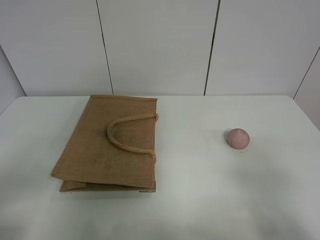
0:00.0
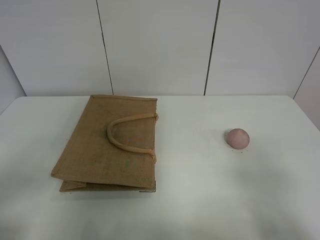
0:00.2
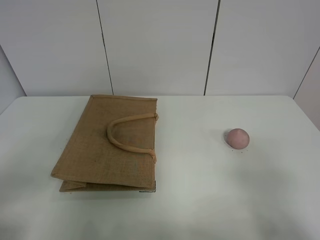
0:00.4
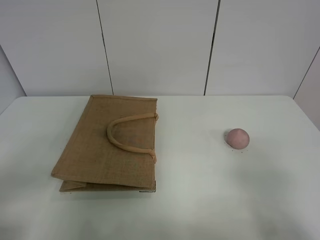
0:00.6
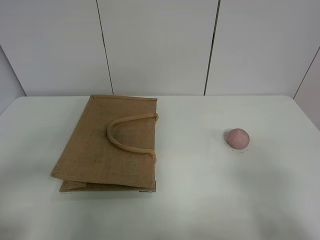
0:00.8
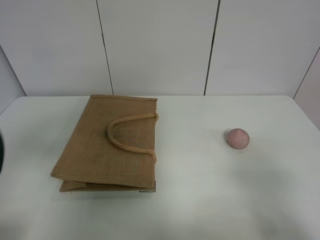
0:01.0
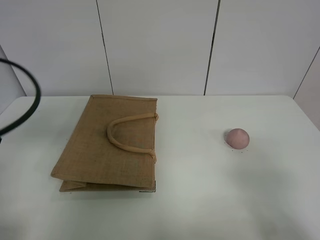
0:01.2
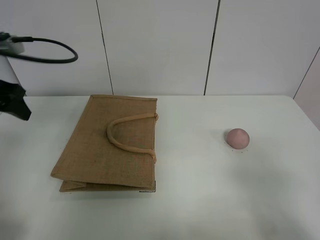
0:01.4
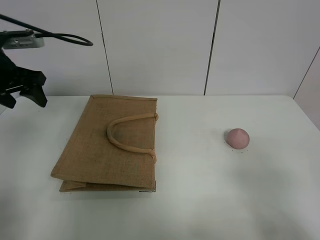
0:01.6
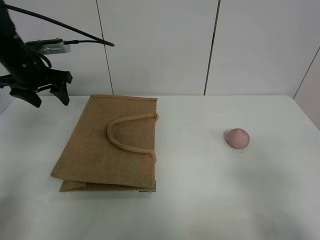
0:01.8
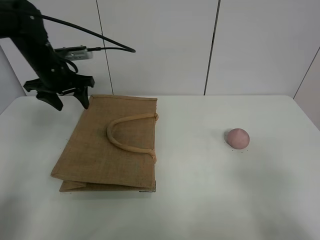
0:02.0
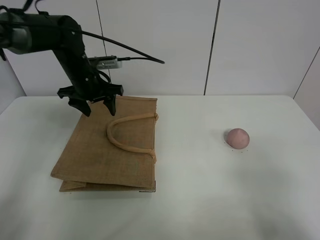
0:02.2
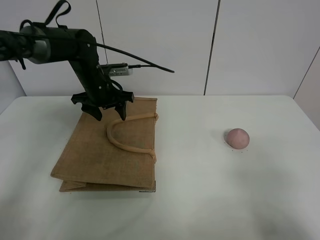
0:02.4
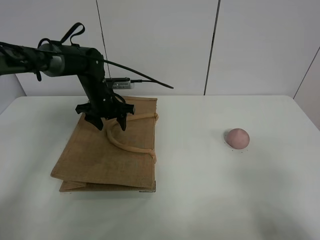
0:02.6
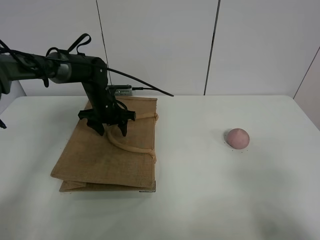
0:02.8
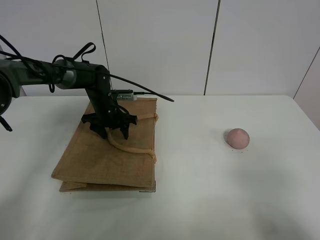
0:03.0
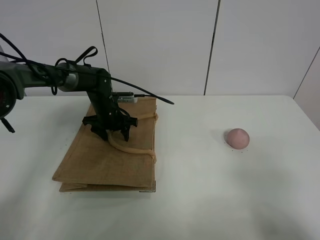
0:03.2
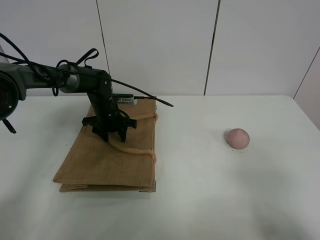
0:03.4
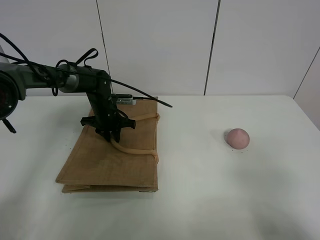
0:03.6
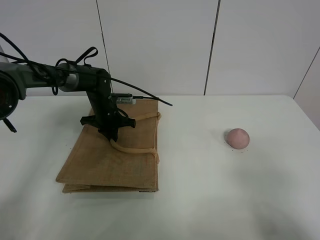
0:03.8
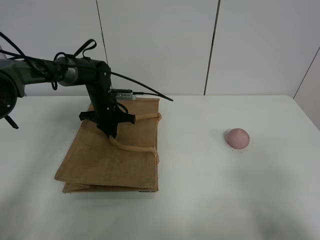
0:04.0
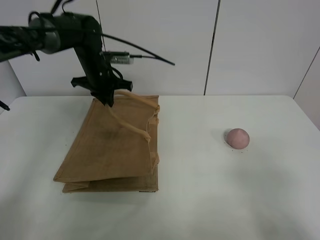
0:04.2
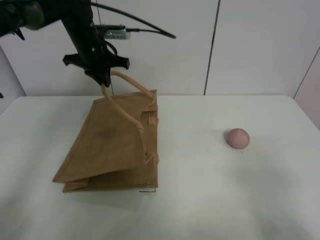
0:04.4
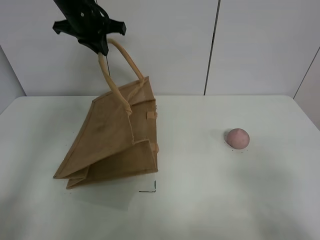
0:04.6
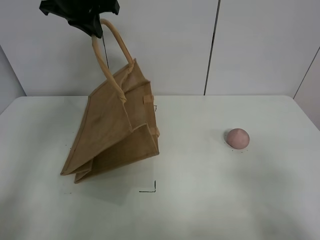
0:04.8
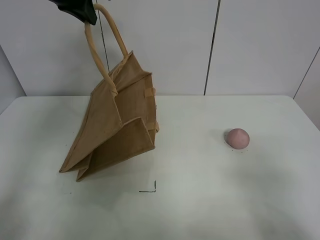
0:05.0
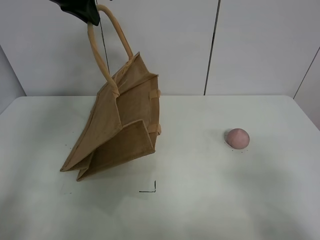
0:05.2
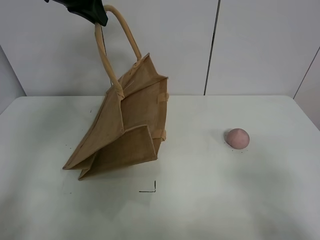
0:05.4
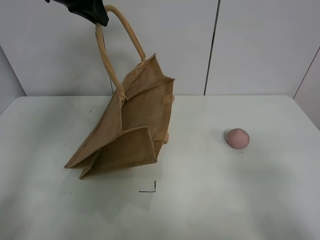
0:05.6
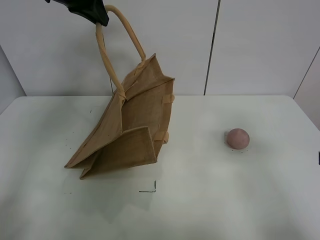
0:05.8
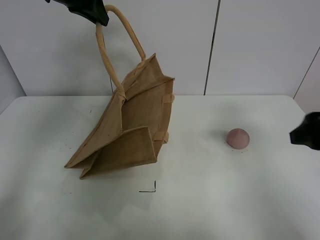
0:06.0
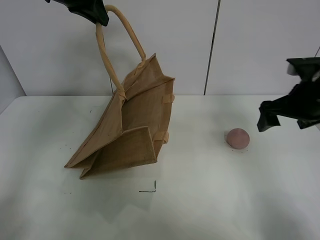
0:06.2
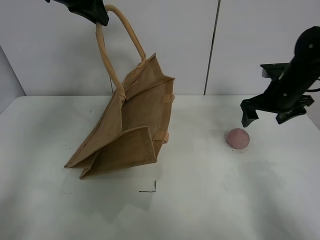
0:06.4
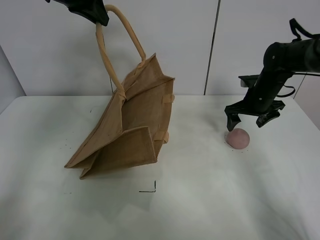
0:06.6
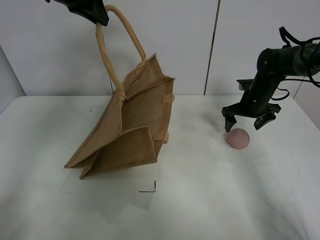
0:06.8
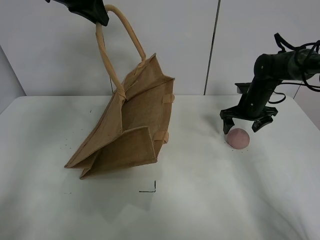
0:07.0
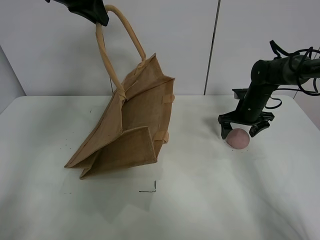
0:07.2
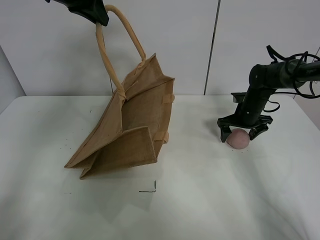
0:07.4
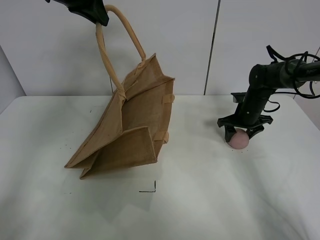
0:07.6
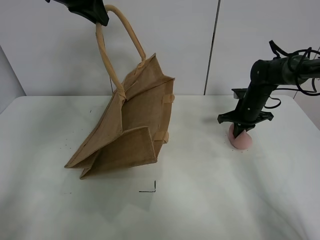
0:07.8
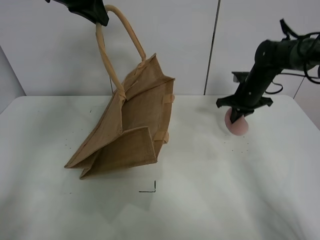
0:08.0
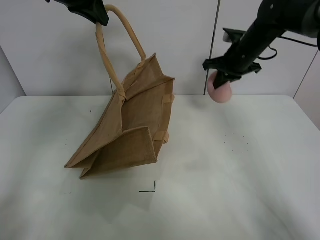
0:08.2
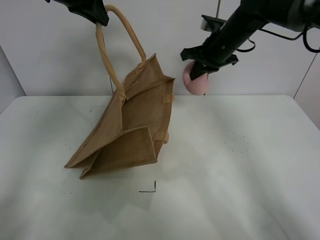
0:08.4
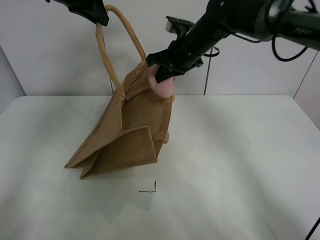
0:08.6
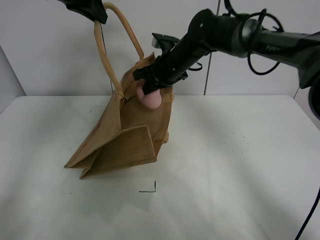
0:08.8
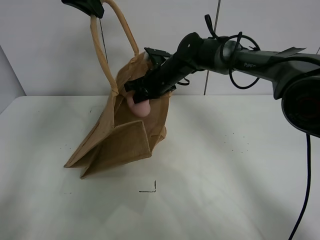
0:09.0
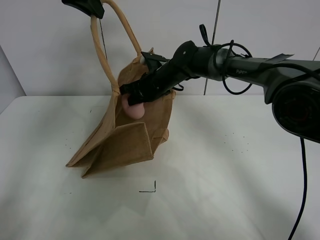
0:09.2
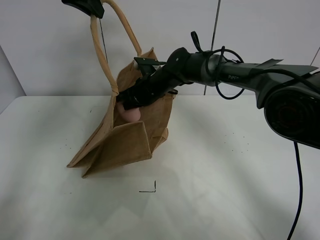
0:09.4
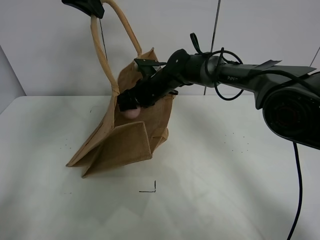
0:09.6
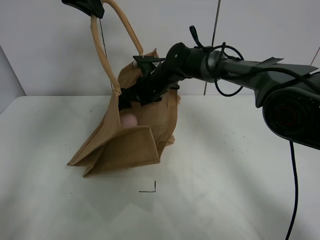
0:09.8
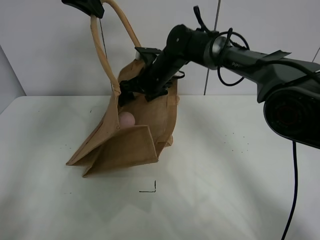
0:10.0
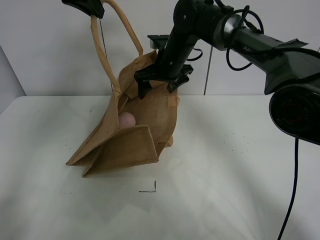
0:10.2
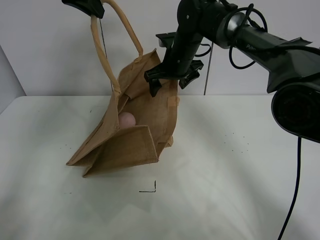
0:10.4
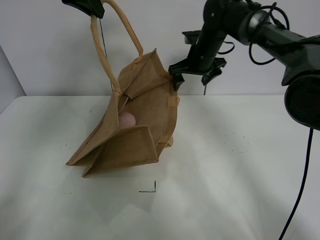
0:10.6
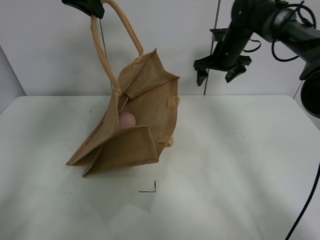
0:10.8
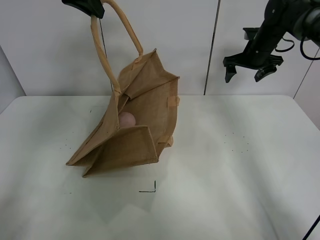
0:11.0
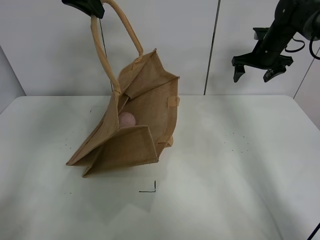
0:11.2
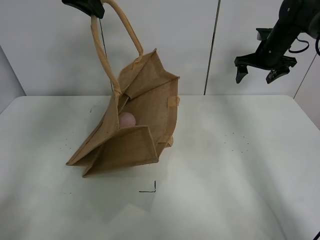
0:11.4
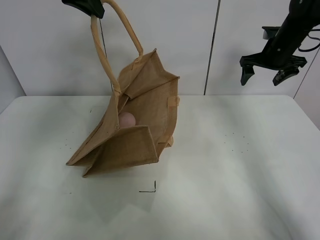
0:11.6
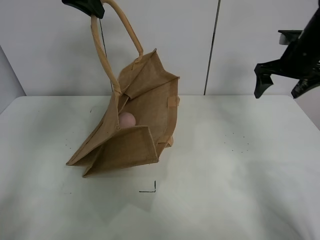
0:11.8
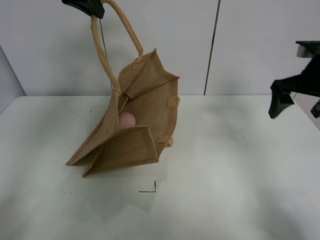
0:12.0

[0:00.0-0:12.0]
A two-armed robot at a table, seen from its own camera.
Task of the whole recording: open the brown linen bag and put the peach in the bag.
Step, 0:00.0 to 0:04.8: Lift the handbag with left gripper.
Step, 0:05.0 to 0:07.6: Grasp the peach with right gripper.
Step, 0:07.8 to 0:10.4: Place the peach in the handbag with right gripper.
0:00.0 to 0:01.6: The left gripper heads forward, covering roughly 35 cm.
0:01.6 to 0:03.0: The left gripper goes approximately 25 cm downward, to the right and forward.
0:03.0 to 0:04.4: The left gripper goes about 20 cm upward, and closes.
0:04.4 to 0:06.0: The right gripper shifts about 20 cm forward; the left gripper moves upward and backward, some 15 cm.
0:06.0 to 0:07.6: The right gripper is displaced forward and downward by approximately 30 cm, and closes its fingers.
0:07.6 to 0:09.0: The right gripper heads to the left, covering roughly 25 cm, and closes its fingers.
0:09.0 to 0:10.4: The right gripper heads upward, covering about 5 cm, and opens.
0:10.4 to 0:12.0: The right gripper goes approximately 30 cm to the right and backward.

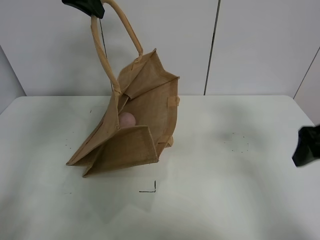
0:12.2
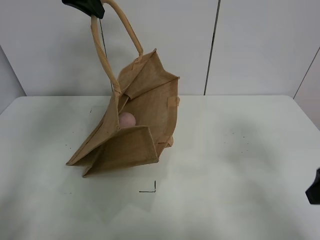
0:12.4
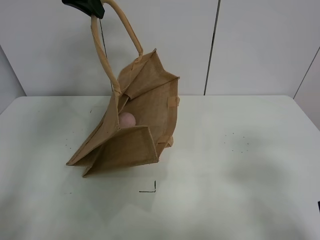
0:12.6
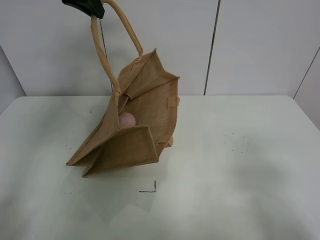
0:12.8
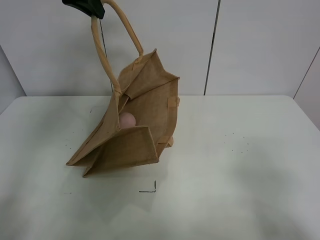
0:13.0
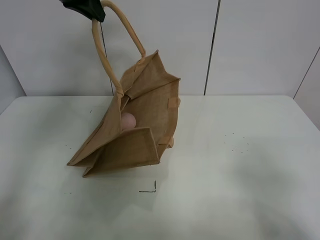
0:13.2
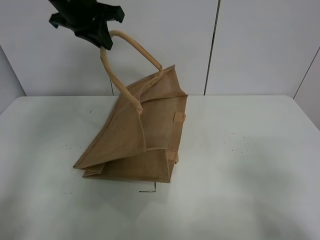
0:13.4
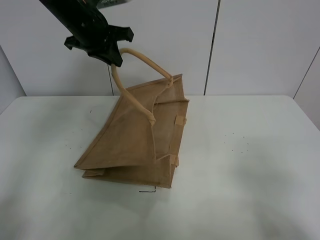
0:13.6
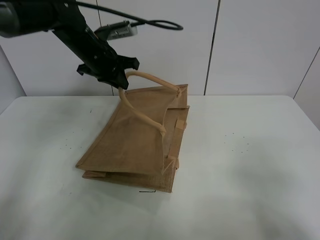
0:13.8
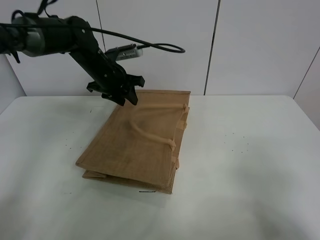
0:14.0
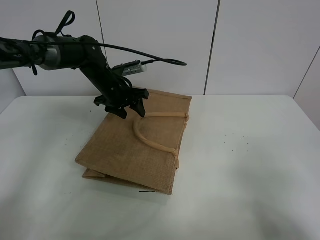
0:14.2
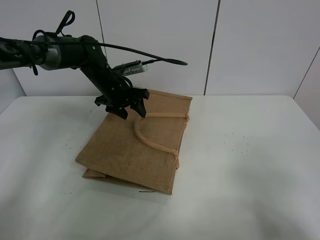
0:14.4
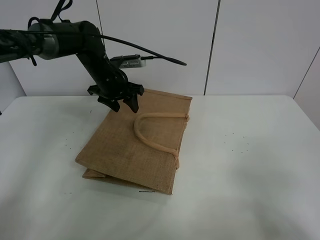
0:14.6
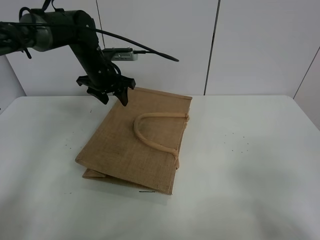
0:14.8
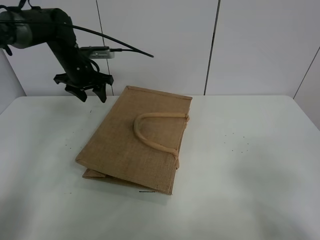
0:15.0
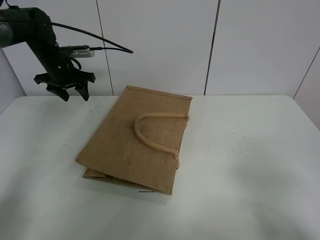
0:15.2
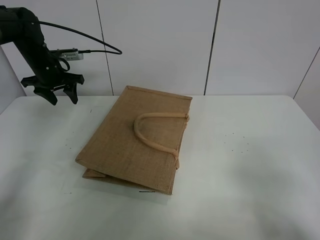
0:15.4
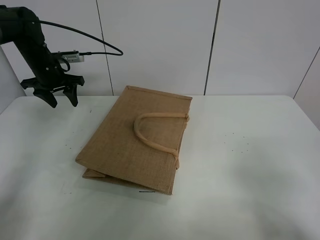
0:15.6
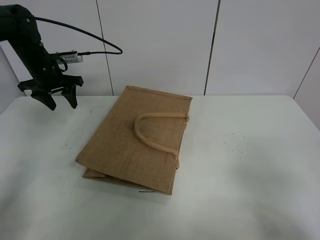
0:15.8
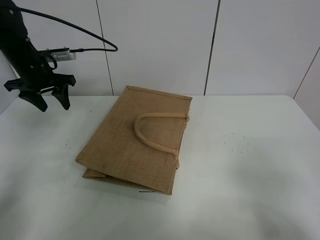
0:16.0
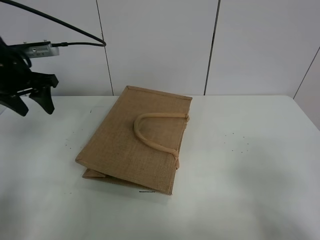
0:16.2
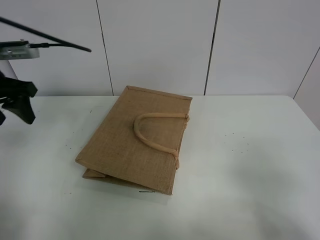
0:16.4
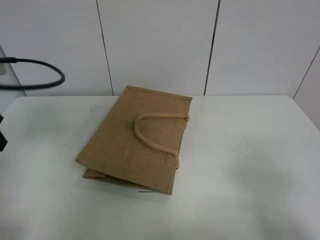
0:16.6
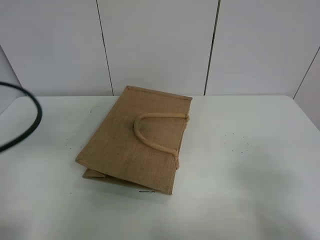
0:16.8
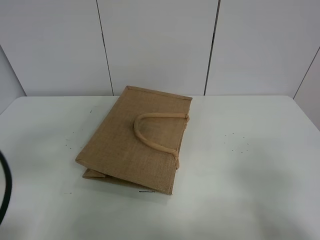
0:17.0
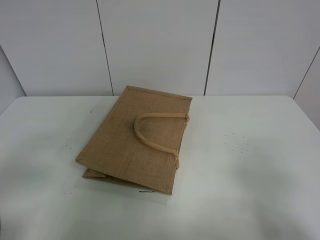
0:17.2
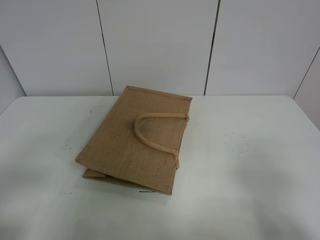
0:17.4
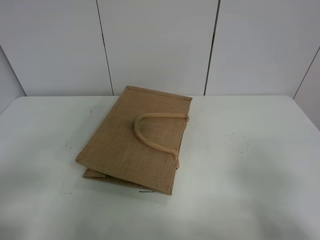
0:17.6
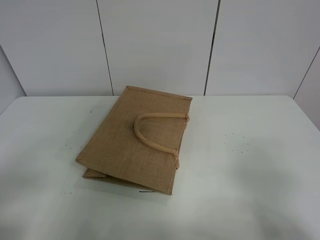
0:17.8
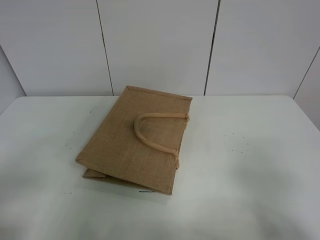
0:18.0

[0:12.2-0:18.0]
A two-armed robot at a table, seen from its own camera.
Task of the whole recording: open the brown linen bag and put the peach in the bag.
Step, 0:12.2 to 0:14.8: Put down the handbag with left grippe.
0:12.2 to 0:13.6: The right gripper travels backward by roughly 20 cm, while the left gripper travels downward by some 10 cm.
0:13.6 to 0:15.0: The left gripper moves downward, to the left and forward, some 15 cm, and opens up.
0:15.0 to 0:16.6: The left gripper is displaced backward by roughly 30 cm.
0:16.6 to 0:18.0: The left gripper is displaced backward by some 15 cm.

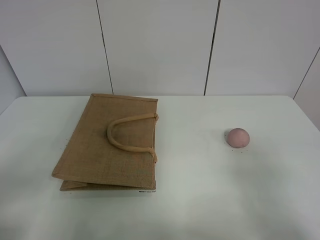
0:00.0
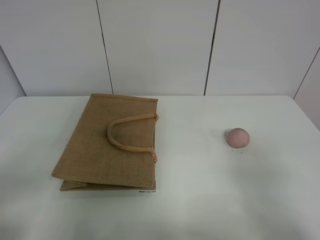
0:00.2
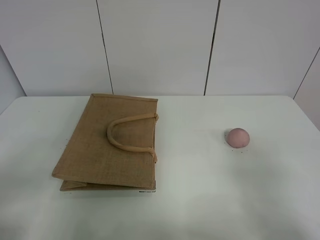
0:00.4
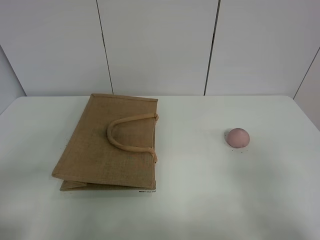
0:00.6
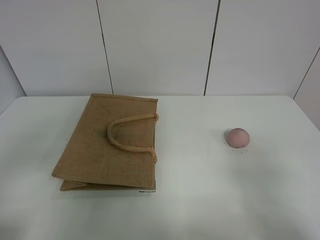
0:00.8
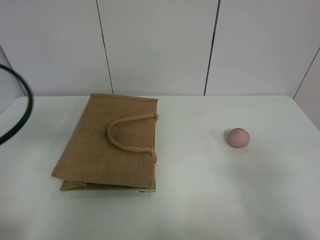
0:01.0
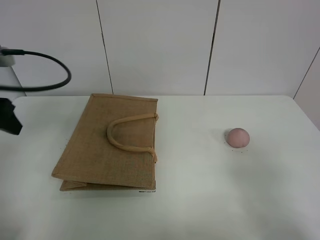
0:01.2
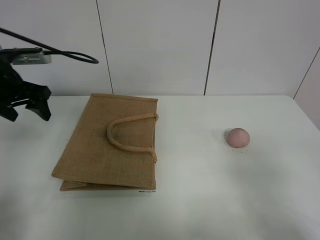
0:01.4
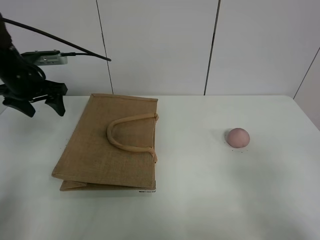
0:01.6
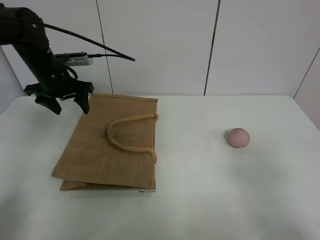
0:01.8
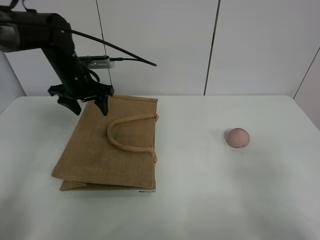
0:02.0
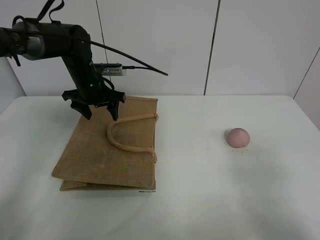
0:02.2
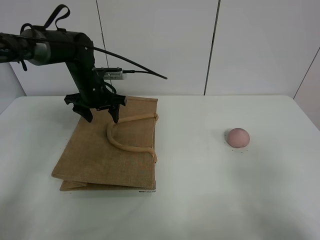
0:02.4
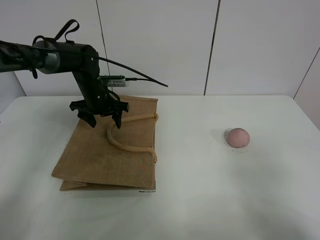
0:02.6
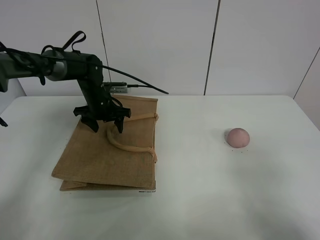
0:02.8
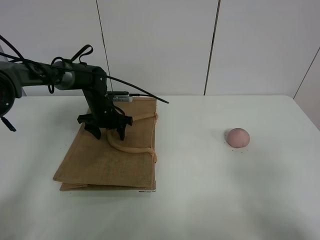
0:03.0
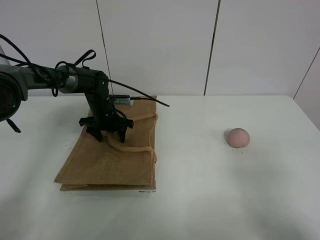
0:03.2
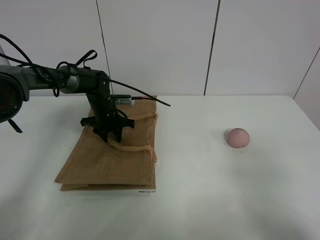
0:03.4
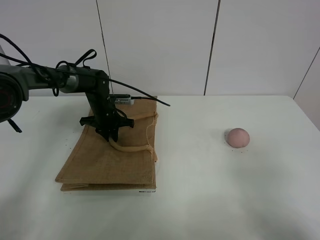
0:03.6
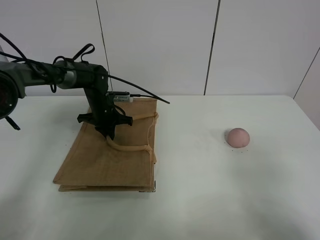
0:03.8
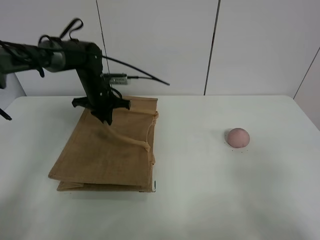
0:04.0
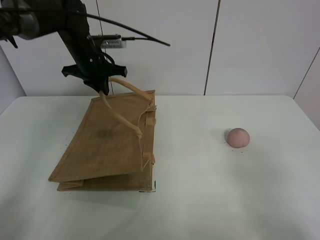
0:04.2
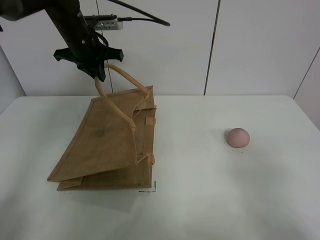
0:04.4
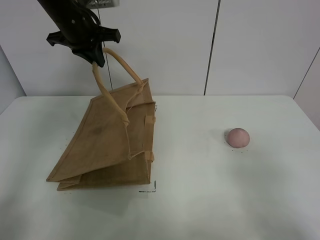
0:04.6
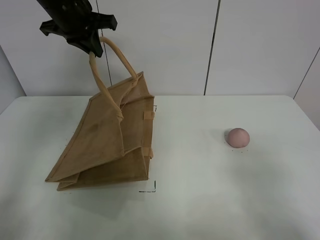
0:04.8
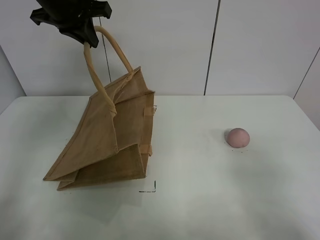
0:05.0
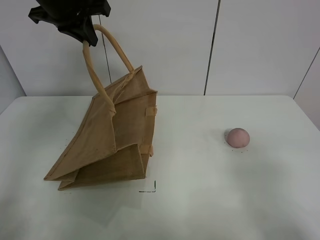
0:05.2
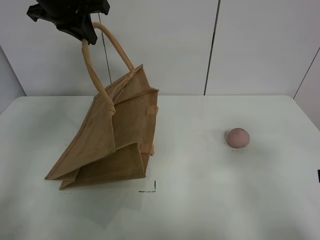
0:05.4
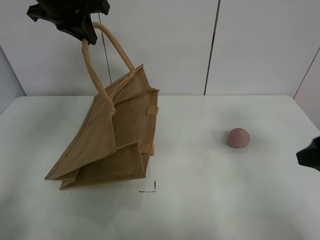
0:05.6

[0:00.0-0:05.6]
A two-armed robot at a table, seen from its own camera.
Task of the whole recording: open the brown linen bag and put the peach in the bag.
Step, 0:00.0 to 0:05.0: Lift the handbag with left gripper.
0:00.0 to 0:01.4: The left gripper goes roughly 30 cm forward.
0:01.4 to 0:02.8: The left gripper heads downward, to the right and forward, covering approximately 25 cm.
0:02.8 to 0:04.2: The left gripper shifts some 15 cm upward, and closes.
0:04.2 to 0:05.6: The right gripper heads forward, covering roughly 15 cm. Meanwhile the left gripper moves upward and backward, roughly 15 cm.
